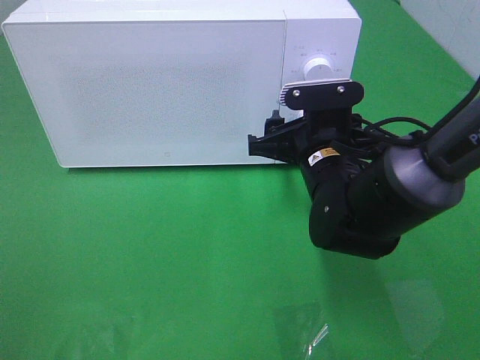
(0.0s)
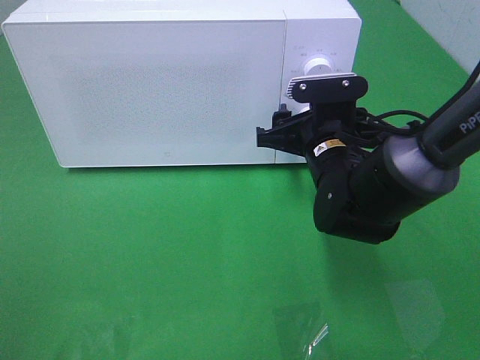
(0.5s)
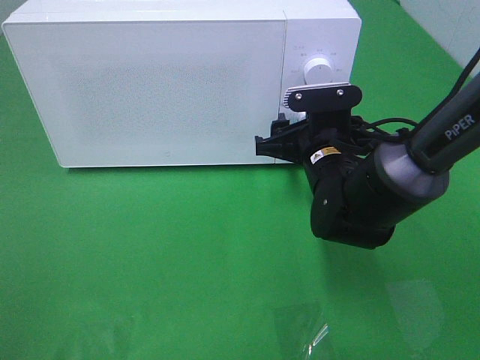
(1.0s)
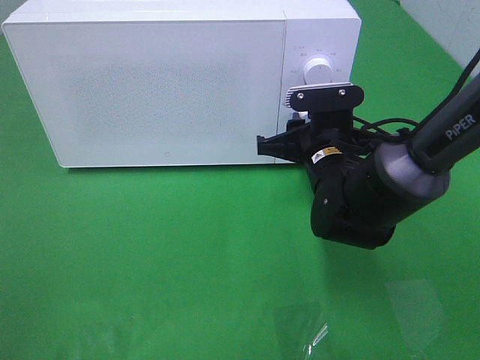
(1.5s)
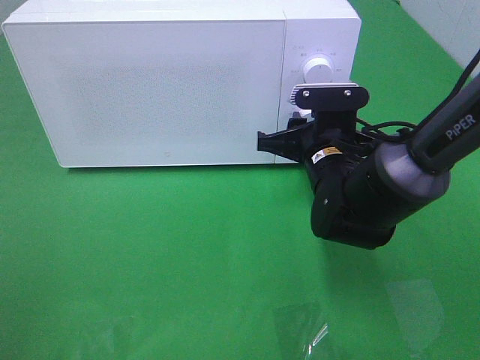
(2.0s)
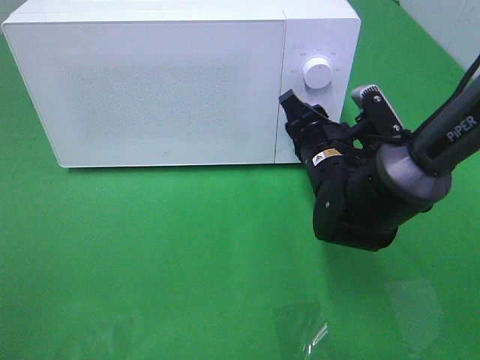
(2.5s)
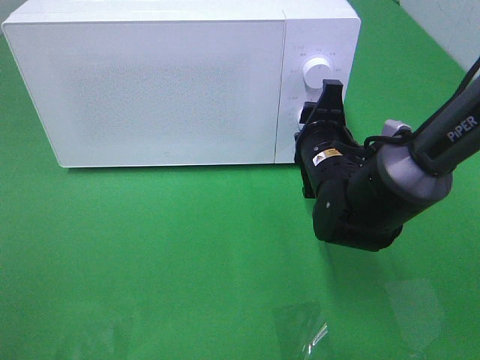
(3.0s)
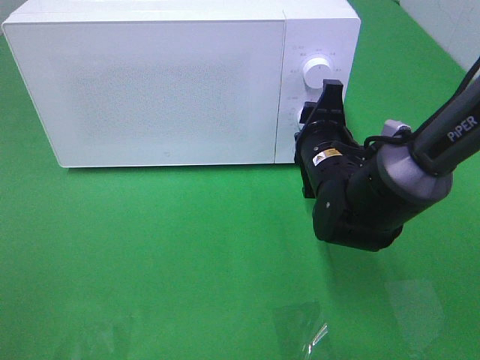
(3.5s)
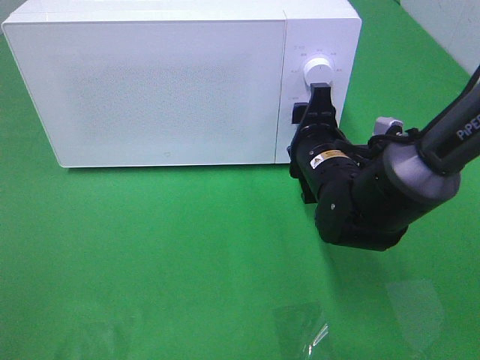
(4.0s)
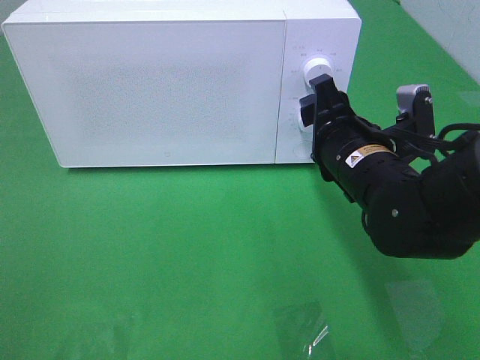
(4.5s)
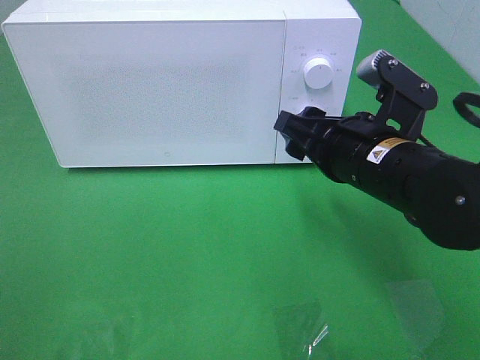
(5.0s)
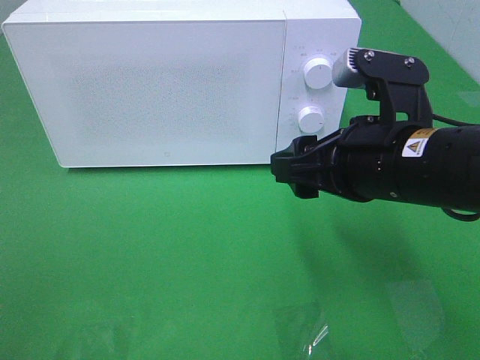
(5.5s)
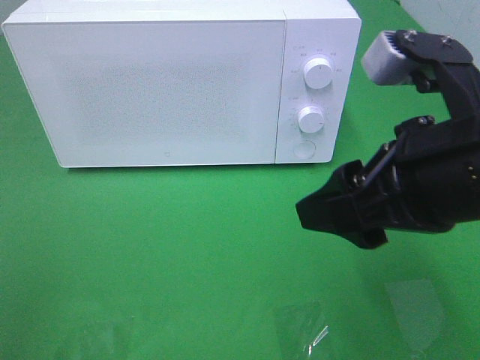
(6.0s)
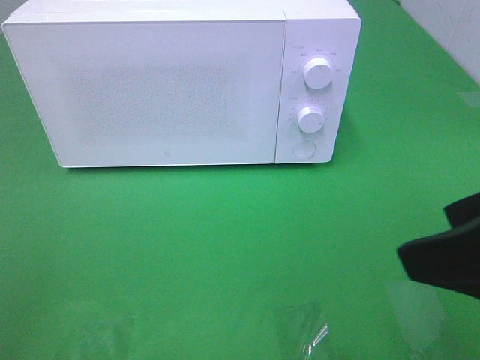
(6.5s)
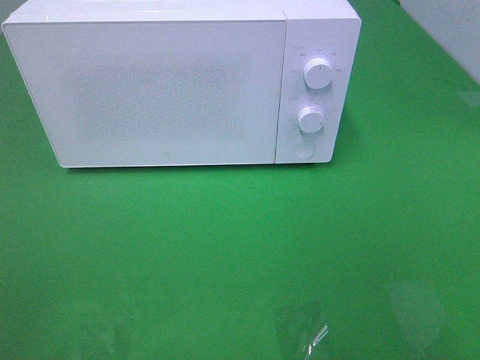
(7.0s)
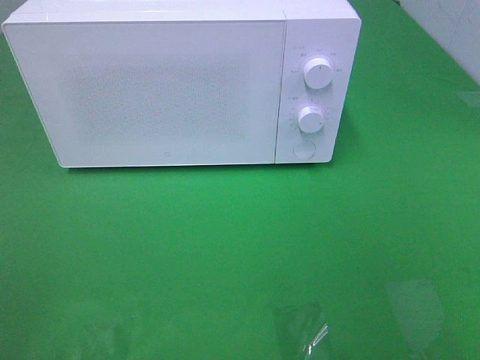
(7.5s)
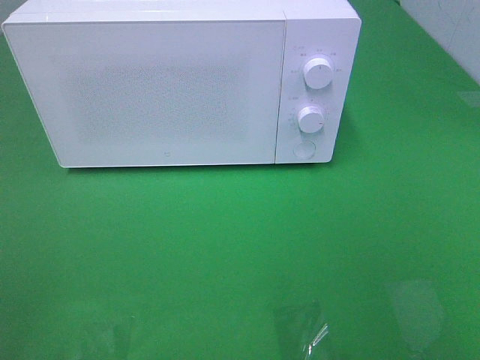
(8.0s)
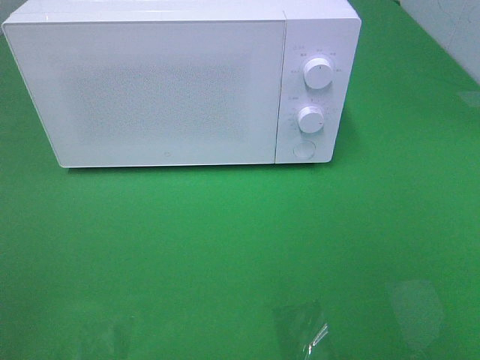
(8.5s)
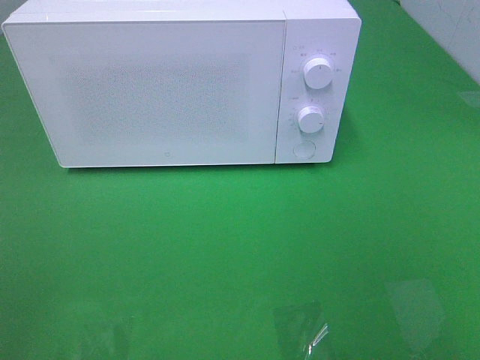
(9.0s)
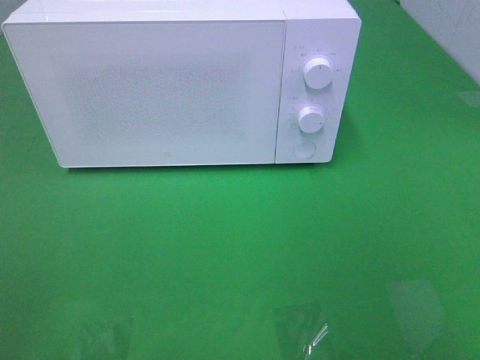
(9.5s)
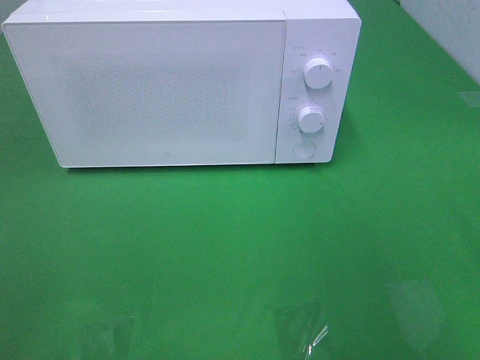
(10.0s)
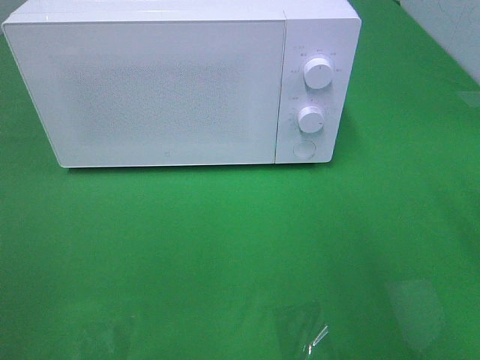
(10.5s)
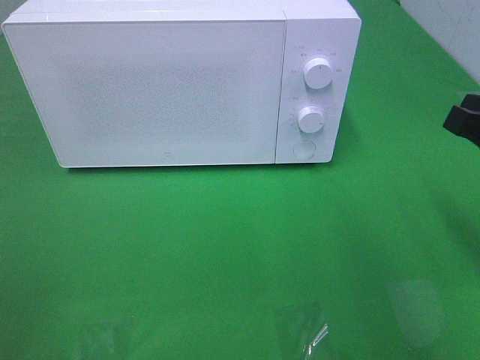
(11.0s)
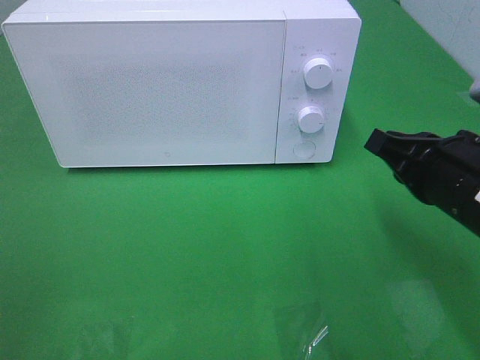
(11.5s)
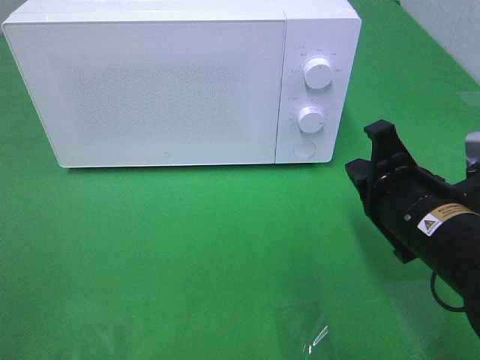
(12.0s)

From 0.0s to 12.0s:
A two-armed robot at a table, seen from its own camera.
Task of the whole recording: Heat the burger.
Step, from 0.0s to 3.5s: Right hand: twist timer button.
From 0.0s to 2.0s: The grippers move only a little.
From 4.0s to 6.0s: The right gripper heads backward and upward, covering some 20 cm.
From 6.0s to 8.0s: The right gripper shifts roughly 20 cm backward and to the right.
From 10.0s to 12.0s: The right gripper heads downward, to the left and forward, covering about 20 cm, and closes its fingers.

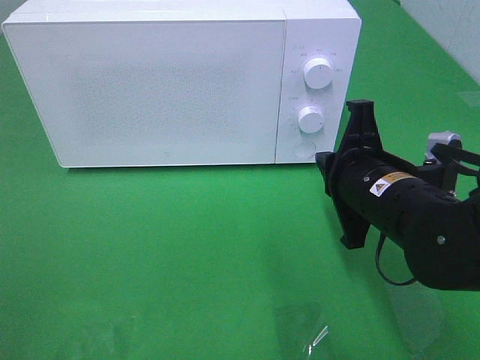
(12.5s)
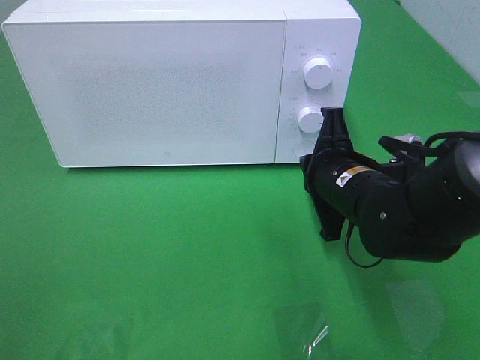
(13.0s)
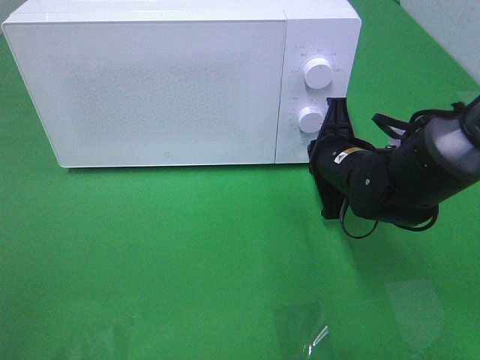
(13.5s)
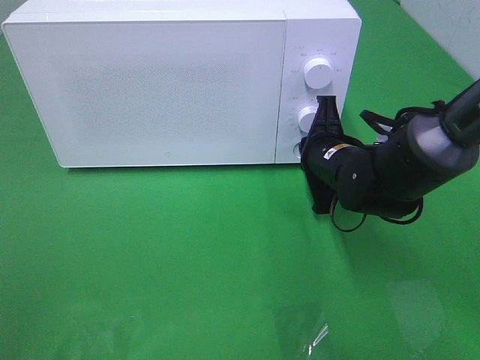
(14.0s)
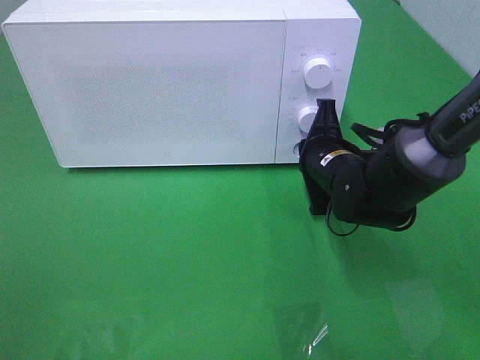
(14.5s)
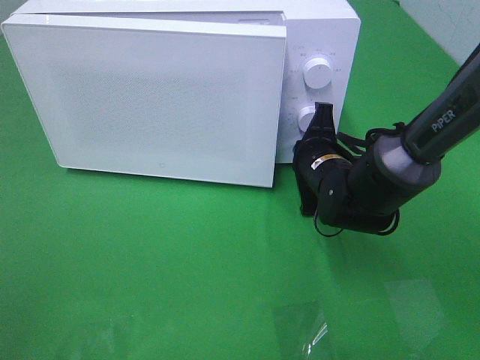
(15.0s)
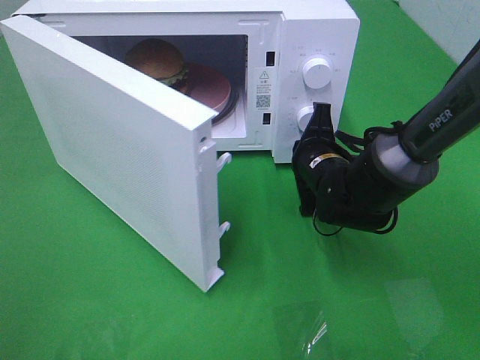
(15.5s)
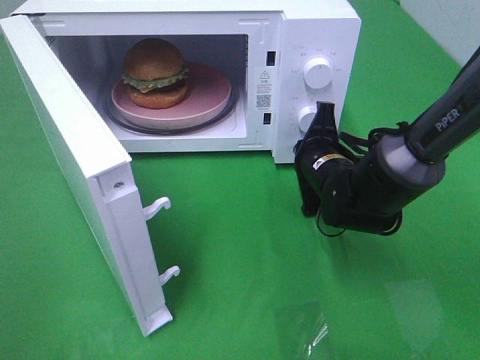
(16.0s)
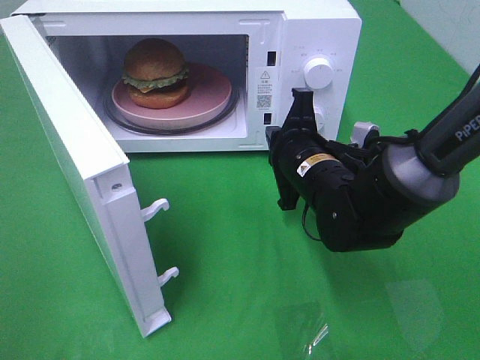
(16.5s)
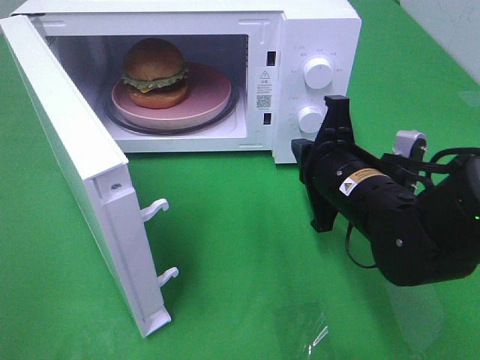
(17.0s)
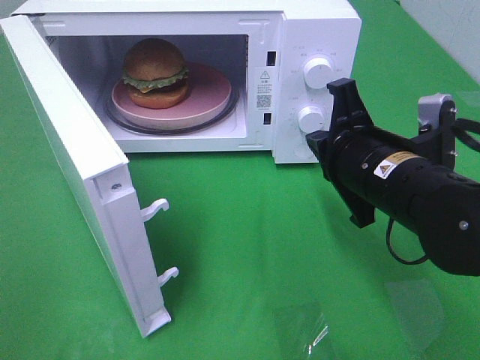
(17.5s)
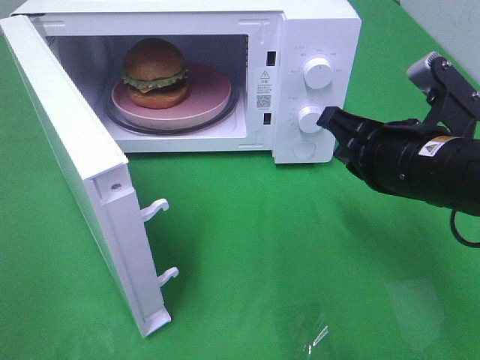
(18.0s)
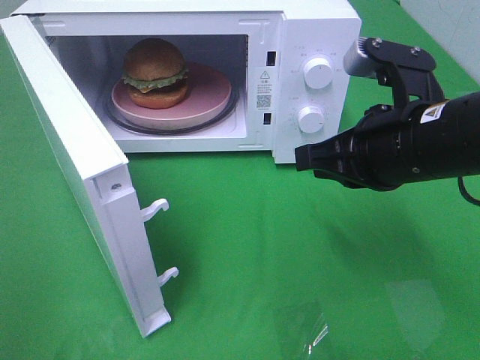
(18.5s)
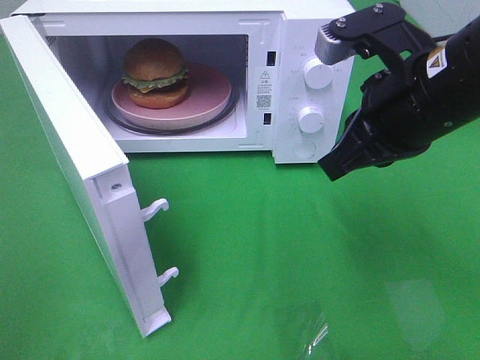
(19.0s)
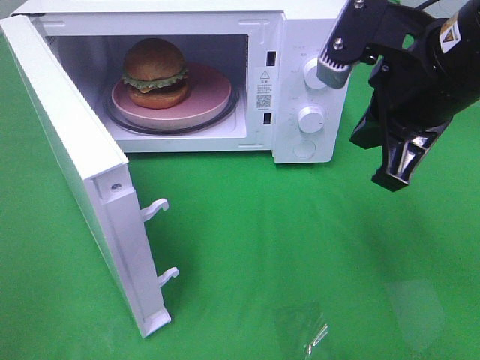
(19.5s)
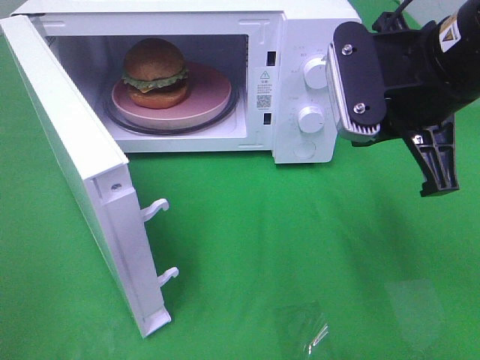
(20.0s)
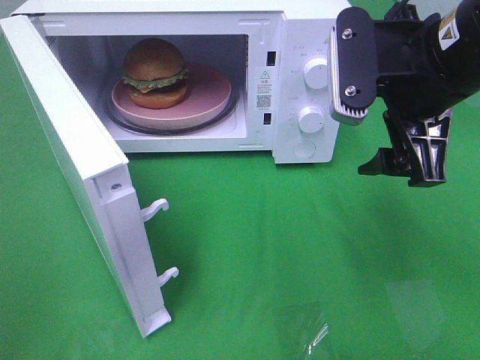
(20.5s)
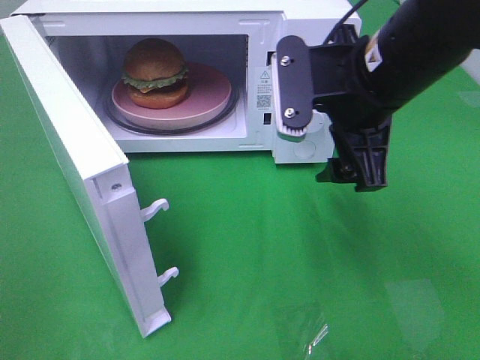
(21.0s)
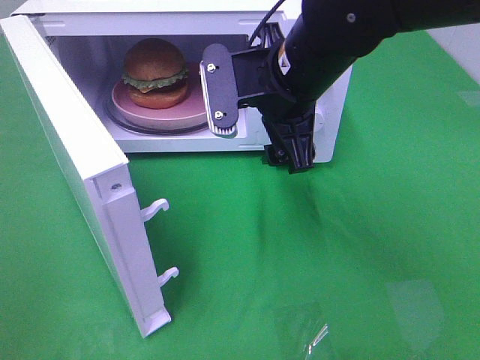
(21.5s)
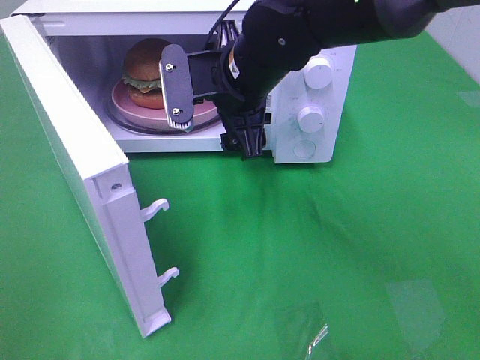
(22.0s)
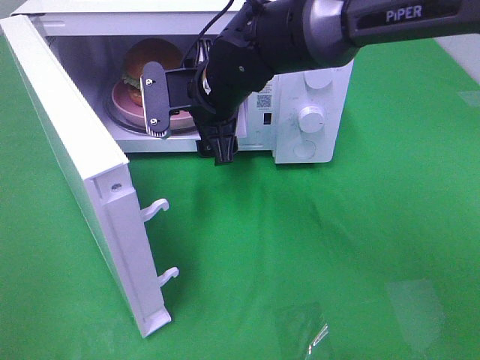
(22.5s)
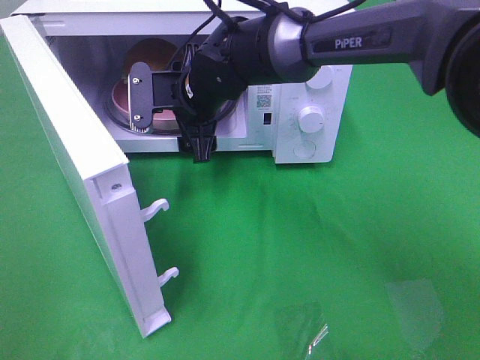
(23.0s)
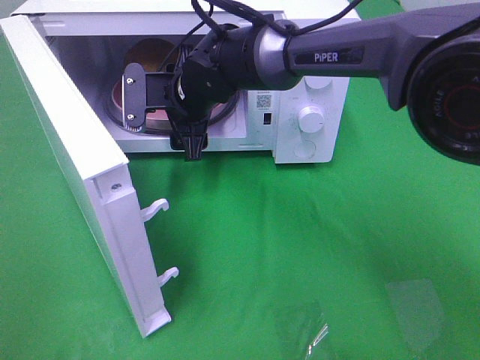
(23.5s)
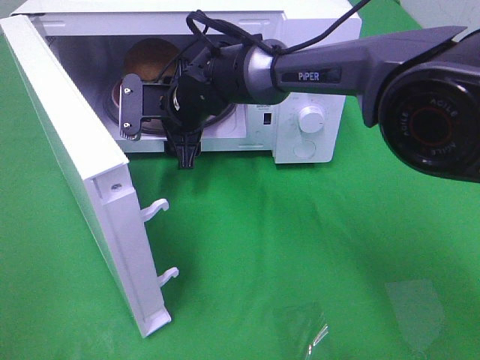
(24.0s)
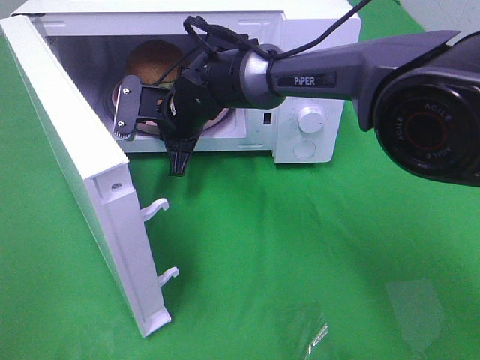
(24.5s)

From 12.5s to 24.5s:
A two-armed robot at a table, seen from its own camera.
Task of the whole recording: Heat the burger.
Step, from 12.5s to 16.0s: Right hand: press the switch.
From 12.5s to 14.5s: The right gripper is displaced forward and downward by some 10 cm.
From 14.5s to 16.5s: The right gripper ends up approximately 5 cm from where it was.
From 16.5s to 18.5s: The right gripper moves upward, backward and to the right, approximately 15 cm.
From 18.5s to 20.5s: The right gripper shifts roughly 5 cm upward, and opens up.
From 20.5s to 22.5s: The right gripper is displaced to the left, forward and downward by roughly 25 cm.
From 22.5s to 24.5s: The right gripper shifts about 5 cm downward, and closes its fingers.

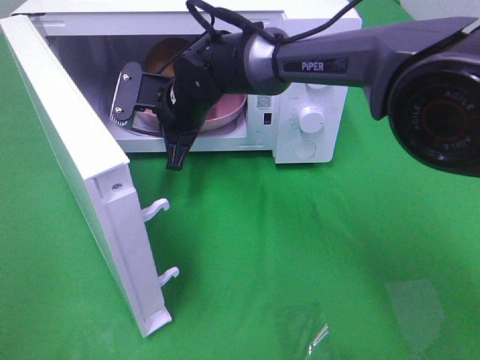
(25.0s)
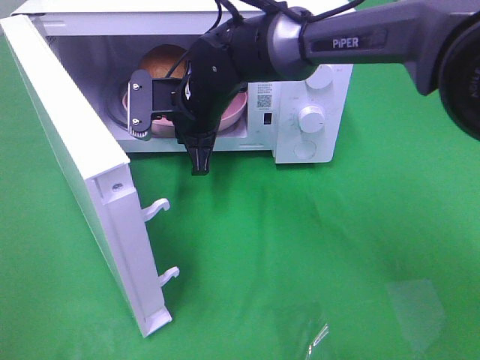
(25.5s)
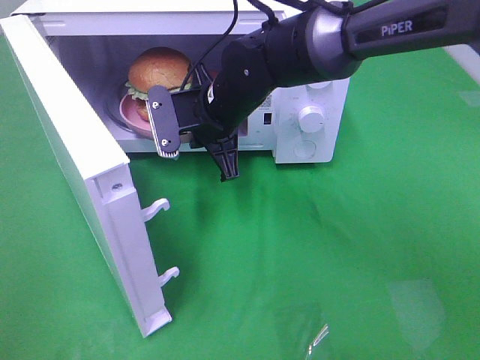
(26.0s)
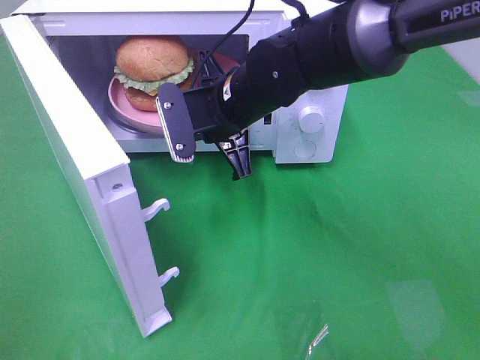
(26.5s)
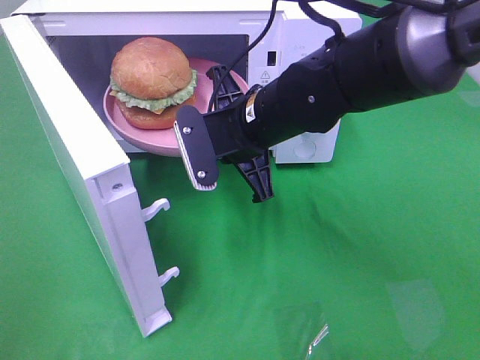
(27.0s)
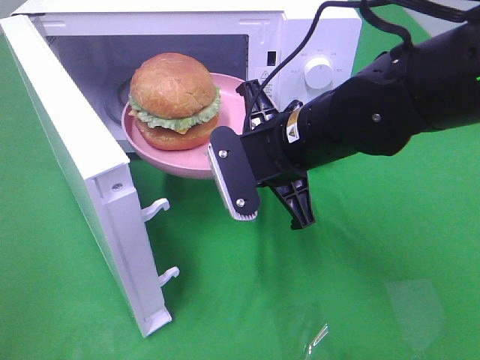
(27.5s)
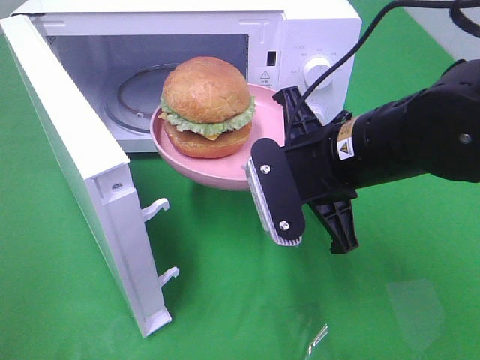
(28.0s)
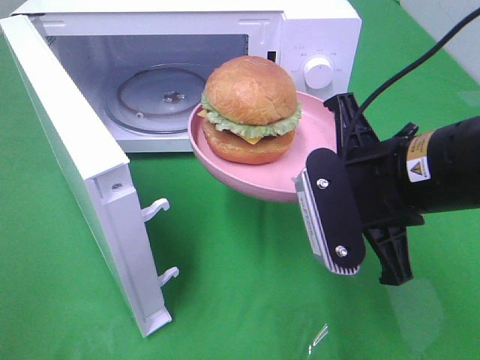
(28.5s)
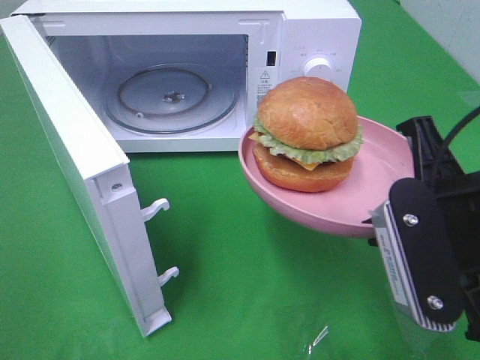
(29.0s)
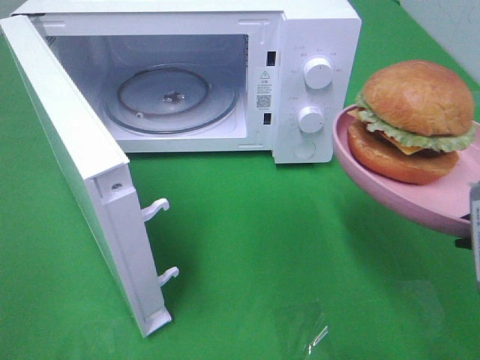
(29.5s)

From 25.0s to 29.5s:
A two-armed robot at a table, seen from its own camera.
Task of the whole recording: Heat the burger.
From 25.0s to 27.0s: The right gripper heads backward and to the right, covering some 15 cm.
From 27.0s to 29.5s: The right gripper moves backward and to the right, about 25 cm.
